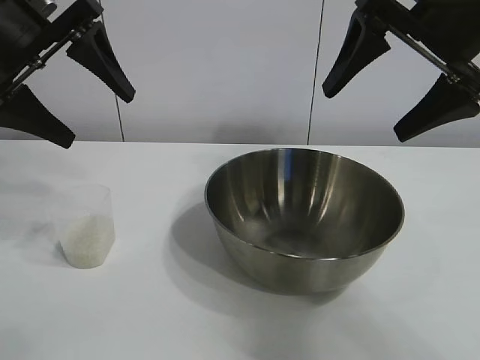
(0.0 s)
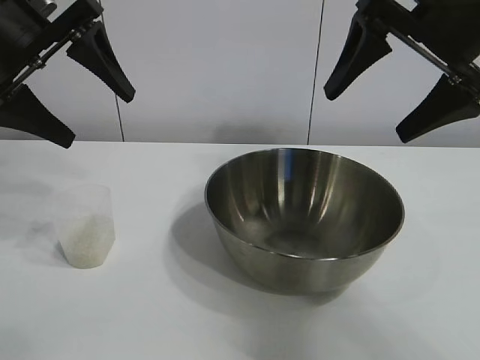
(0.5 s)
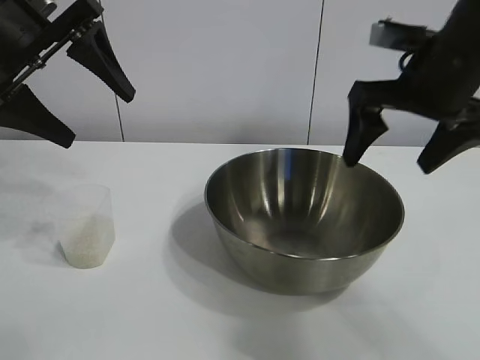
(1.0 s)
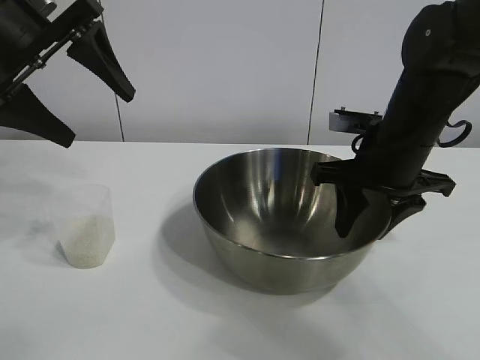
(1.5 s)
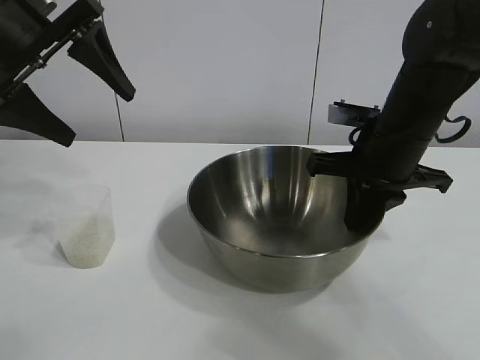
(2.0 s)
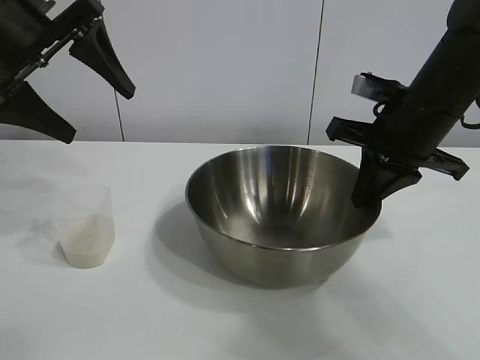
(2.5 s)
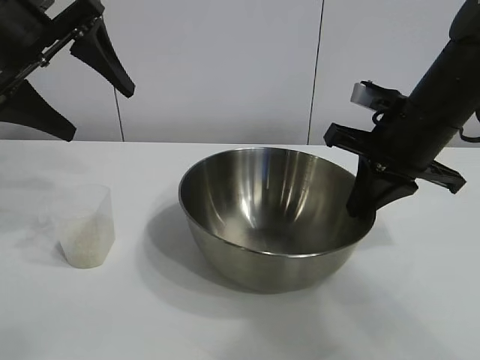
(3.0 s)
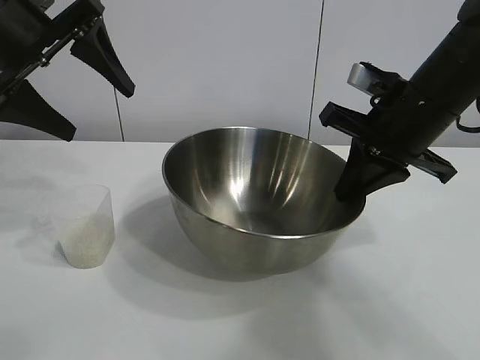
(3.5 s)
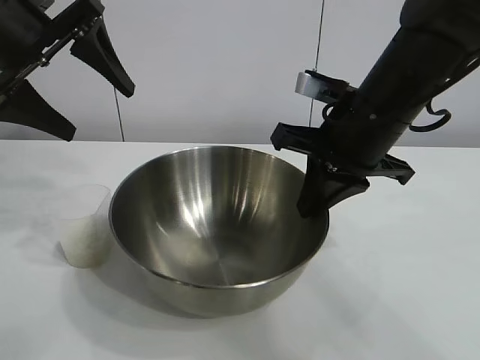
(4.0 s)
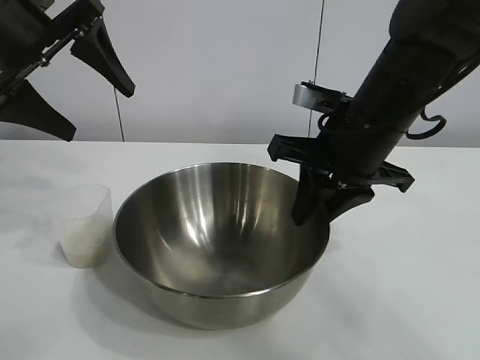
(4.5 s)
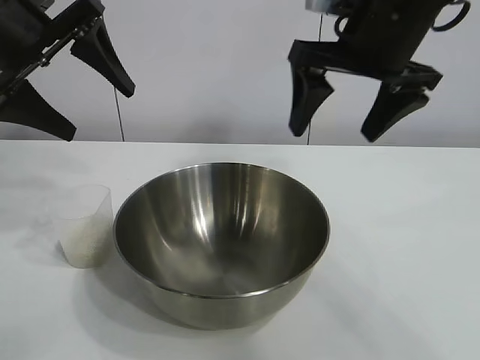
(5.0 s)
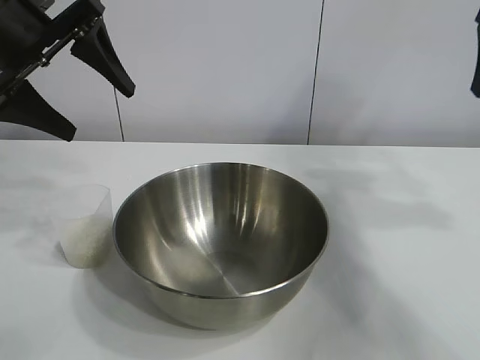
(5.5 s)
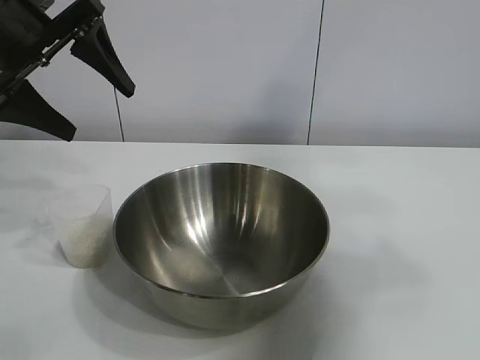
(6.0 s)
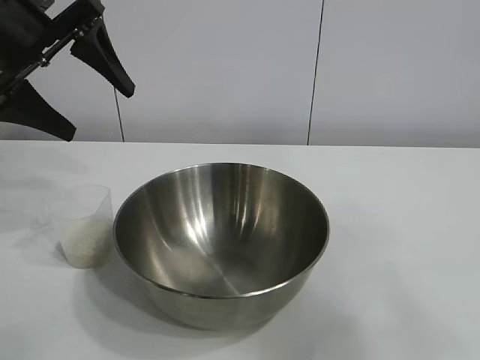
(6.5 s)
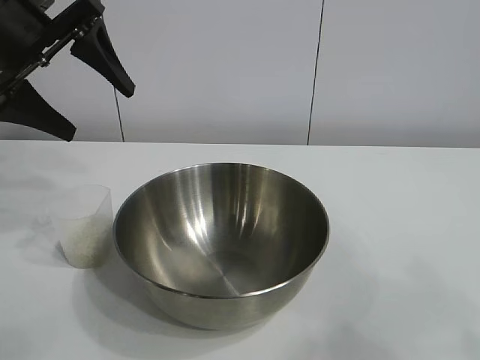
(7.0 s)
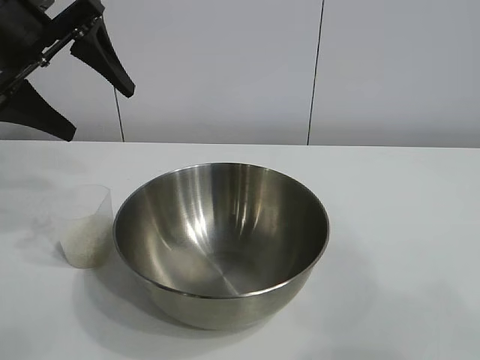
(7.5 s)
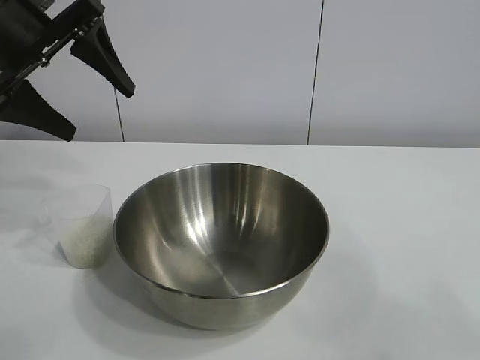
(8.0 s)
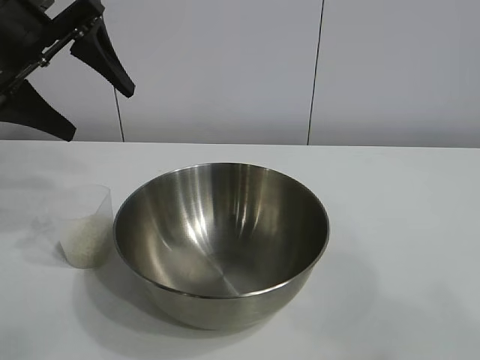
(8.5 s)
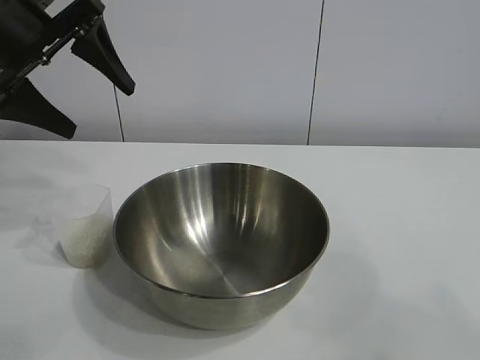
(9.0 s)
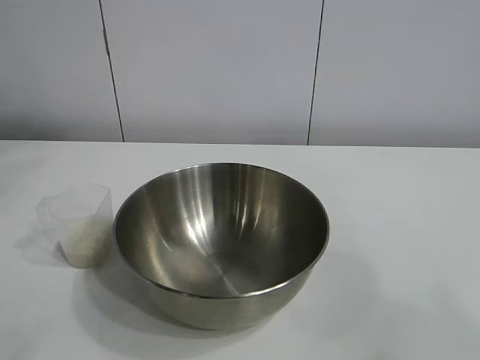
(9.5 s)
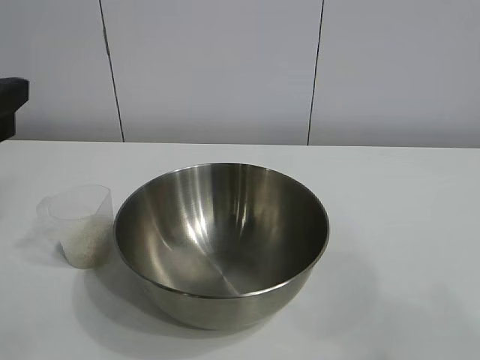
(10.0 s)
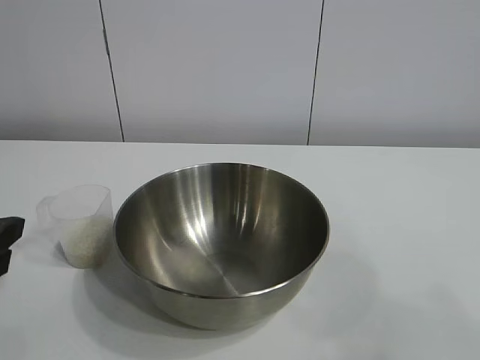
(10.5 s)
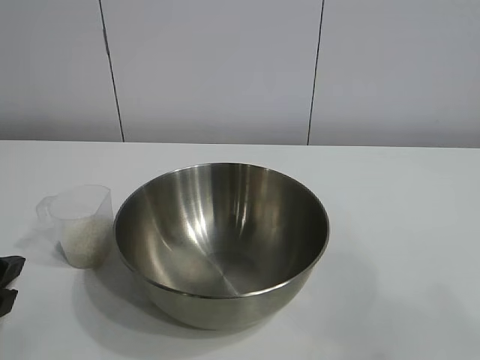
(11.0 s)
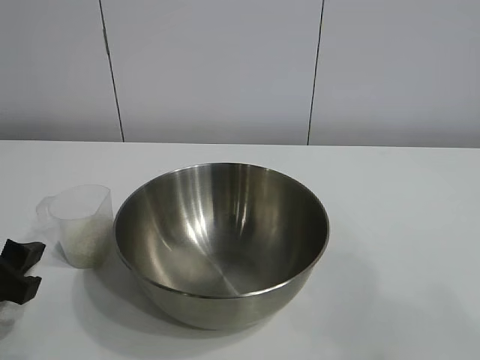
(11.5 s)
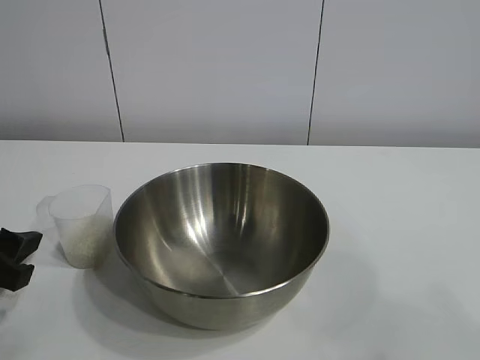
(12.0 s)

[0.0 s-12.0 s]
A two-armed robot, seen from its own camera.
Task of the whole recording: the right gripper grasp the rice container and place it in the center of the table, the left gripper grasp the rice scoop and pour the rice into the rice container.
Step, 1.0 to 4.5 s: Move the bowl in the center of view with right gripper.

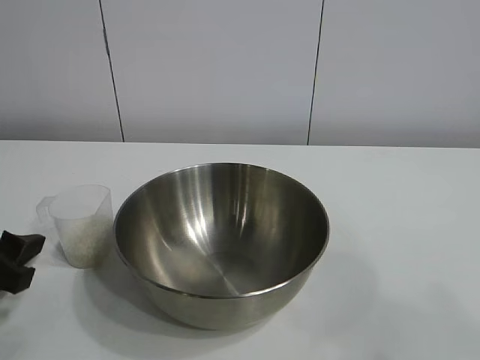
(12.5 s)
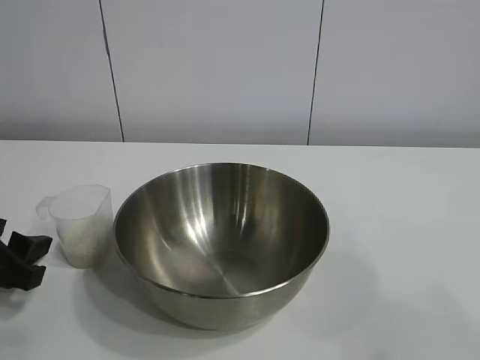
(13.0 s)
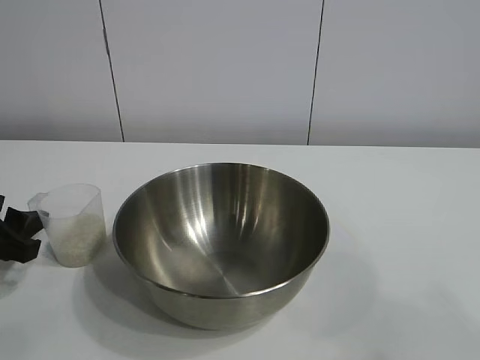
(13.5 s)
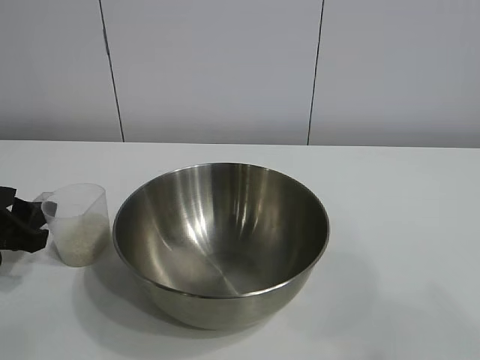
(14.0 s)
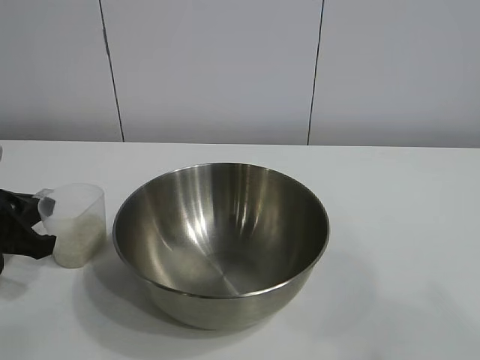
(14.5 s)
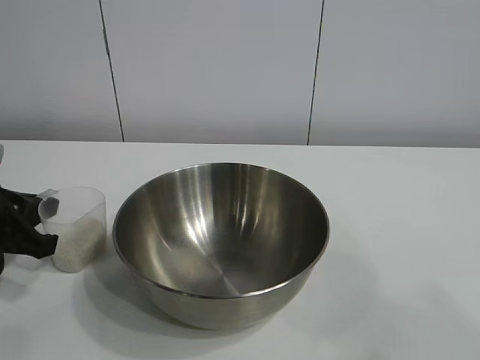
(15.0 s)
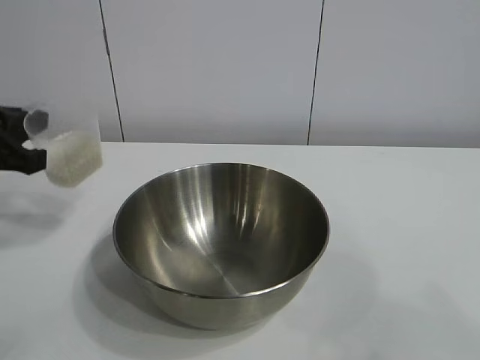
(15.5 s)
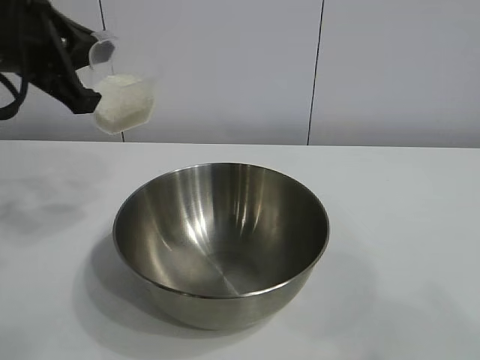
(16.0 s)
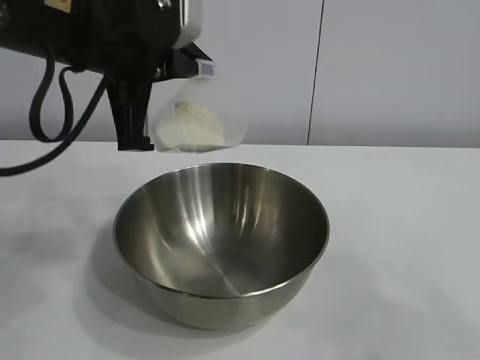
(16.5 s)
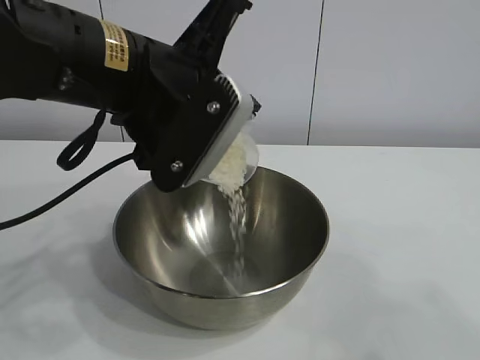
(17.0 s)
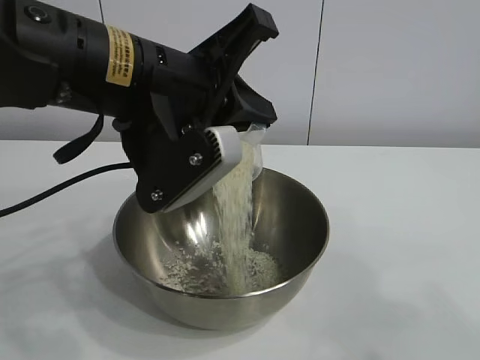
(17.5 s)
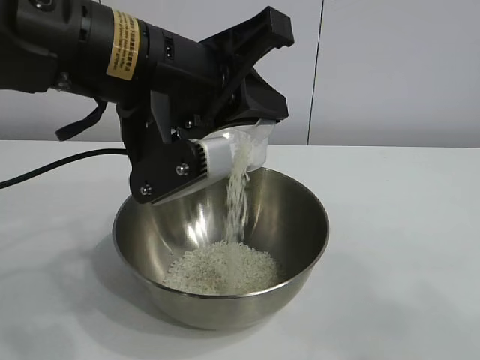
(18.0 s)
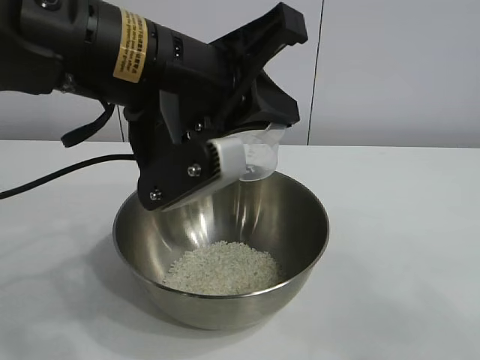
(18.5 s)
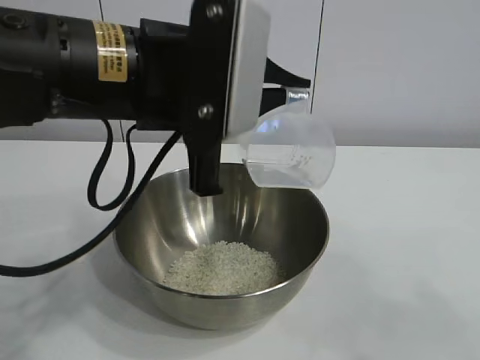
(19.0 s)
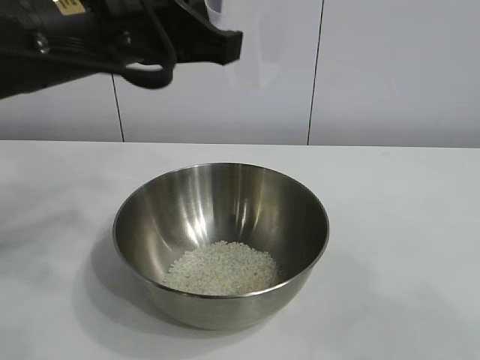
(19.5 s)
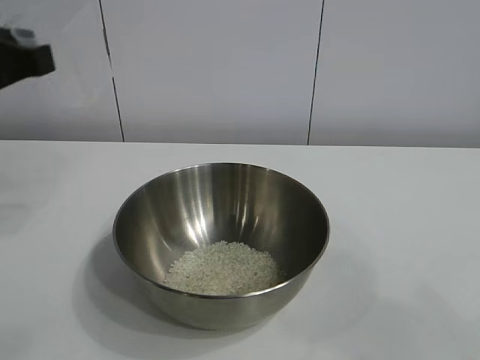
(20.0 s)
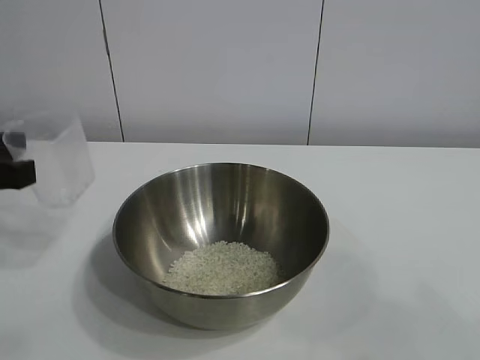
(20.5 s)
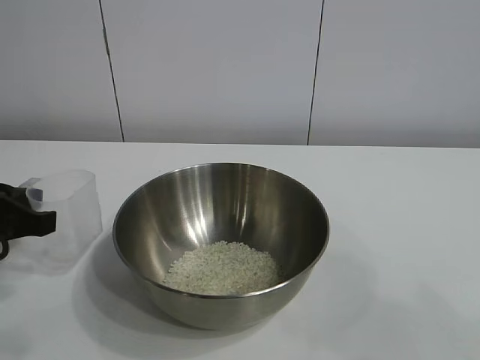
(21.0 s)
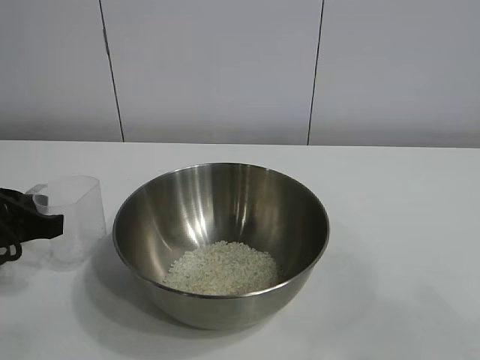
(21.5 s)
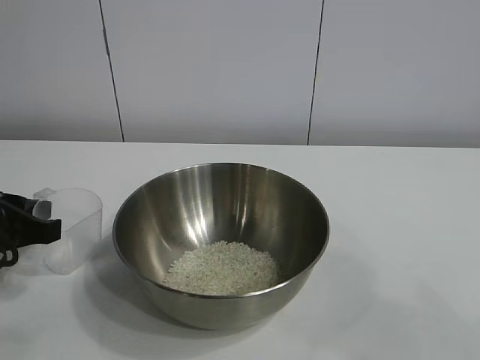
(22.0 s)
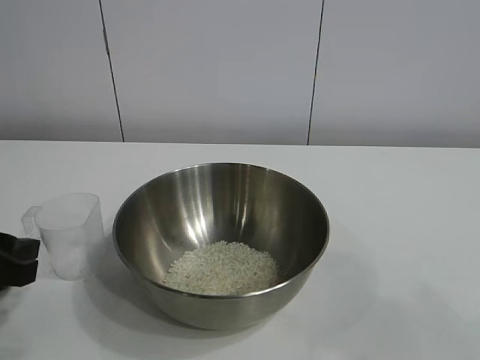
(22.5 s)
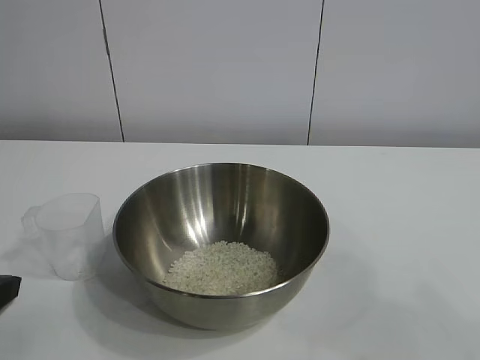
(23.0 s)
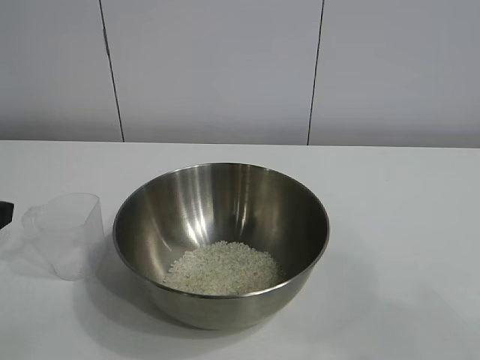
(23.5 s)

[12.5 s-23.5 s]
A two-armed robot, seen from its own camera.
Task of the whole recording: the right gripper grasp the rice container and place it in the center of the table, the left gripper grasp the rice scoop and pour the rice into the rice container.
Step, 14.5 to 18.5 s: Pour the rice from the cup into the bowl with the left gripper.
Step, 19.0 to 22.0 s: Place the cup on the table with the left gripper.
